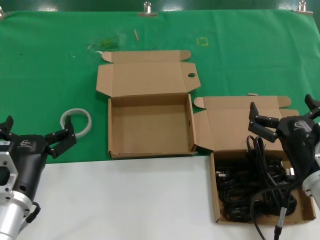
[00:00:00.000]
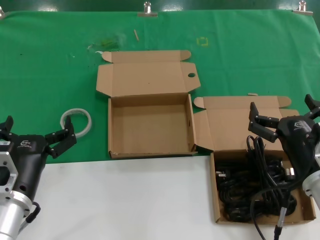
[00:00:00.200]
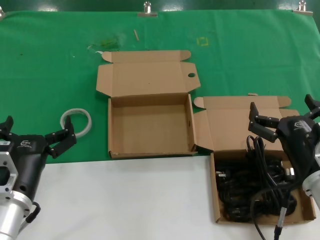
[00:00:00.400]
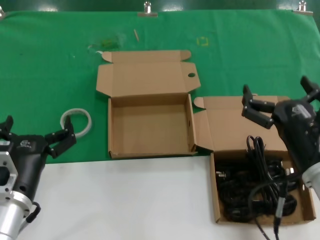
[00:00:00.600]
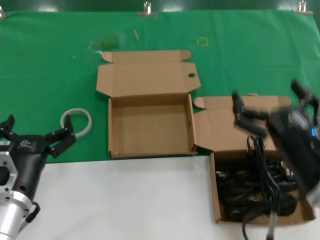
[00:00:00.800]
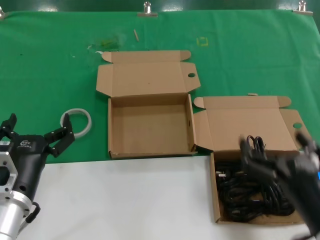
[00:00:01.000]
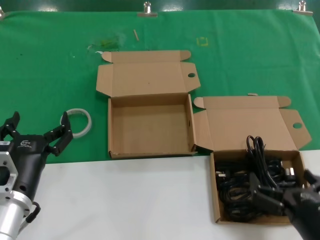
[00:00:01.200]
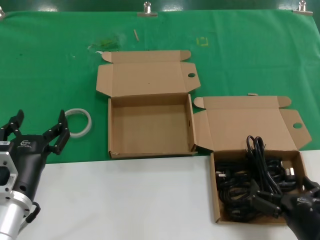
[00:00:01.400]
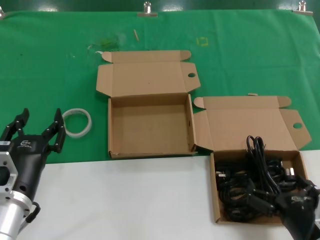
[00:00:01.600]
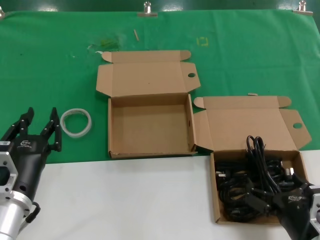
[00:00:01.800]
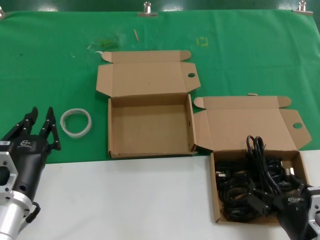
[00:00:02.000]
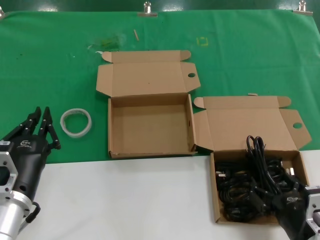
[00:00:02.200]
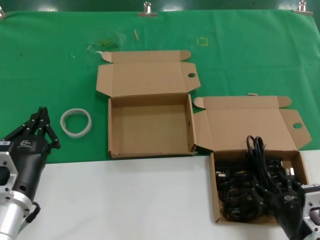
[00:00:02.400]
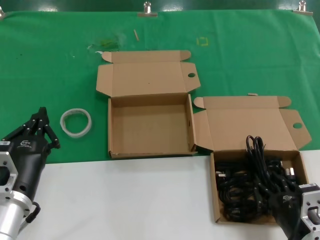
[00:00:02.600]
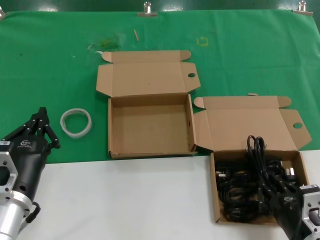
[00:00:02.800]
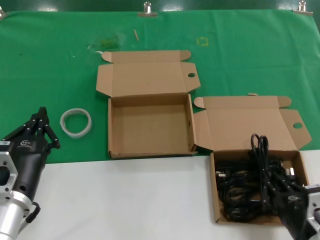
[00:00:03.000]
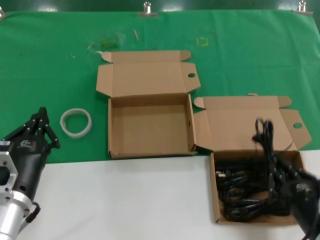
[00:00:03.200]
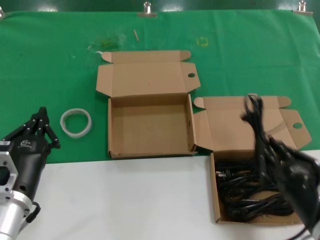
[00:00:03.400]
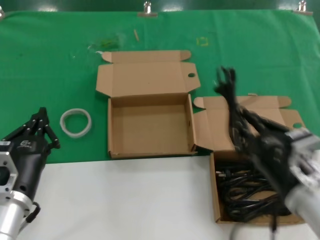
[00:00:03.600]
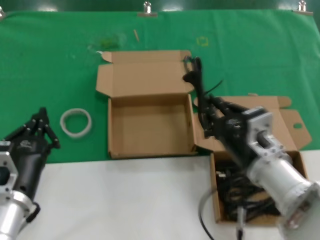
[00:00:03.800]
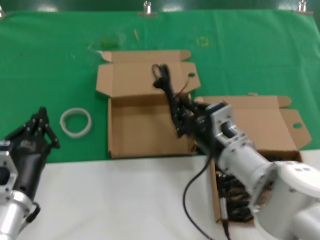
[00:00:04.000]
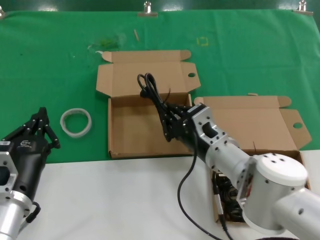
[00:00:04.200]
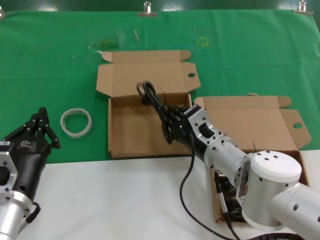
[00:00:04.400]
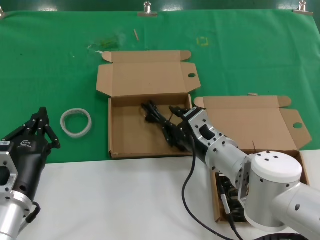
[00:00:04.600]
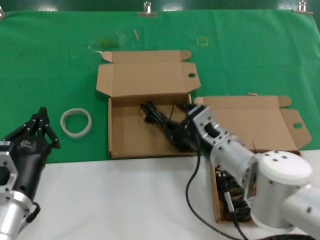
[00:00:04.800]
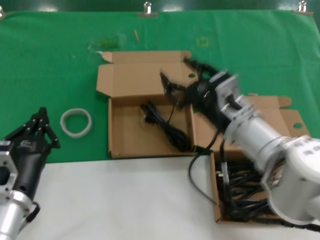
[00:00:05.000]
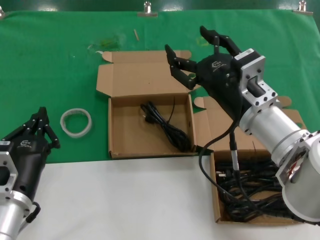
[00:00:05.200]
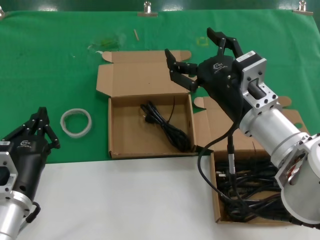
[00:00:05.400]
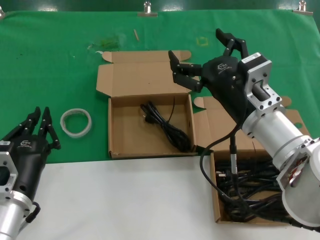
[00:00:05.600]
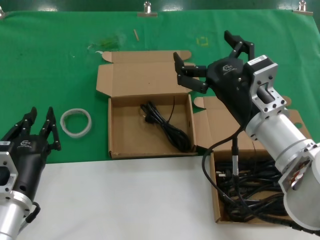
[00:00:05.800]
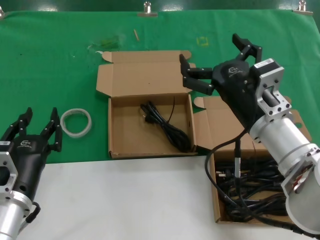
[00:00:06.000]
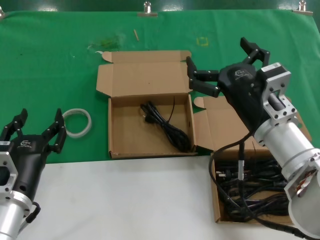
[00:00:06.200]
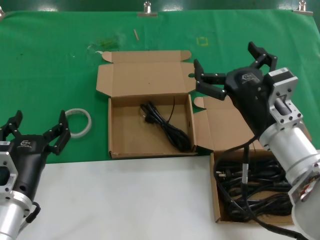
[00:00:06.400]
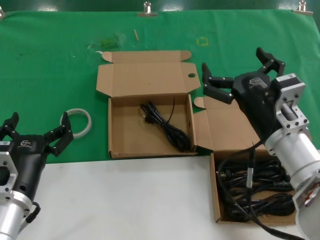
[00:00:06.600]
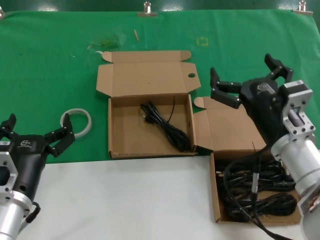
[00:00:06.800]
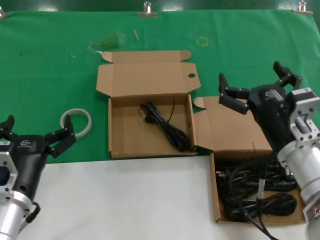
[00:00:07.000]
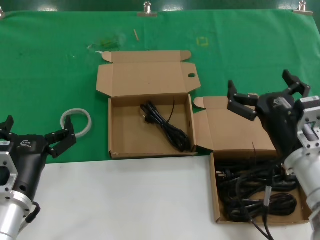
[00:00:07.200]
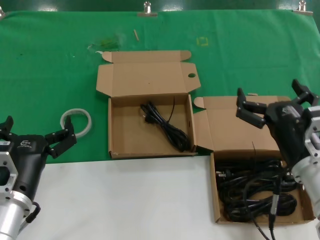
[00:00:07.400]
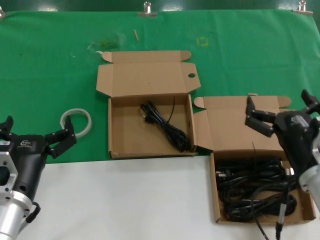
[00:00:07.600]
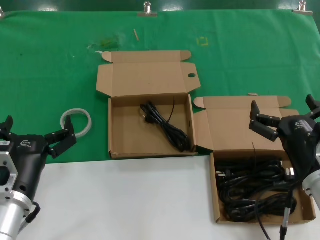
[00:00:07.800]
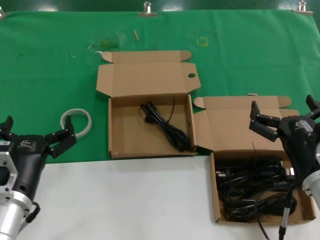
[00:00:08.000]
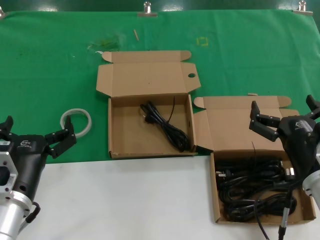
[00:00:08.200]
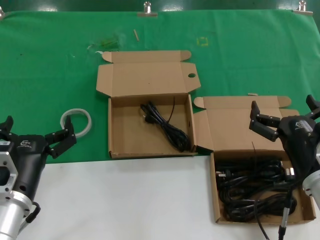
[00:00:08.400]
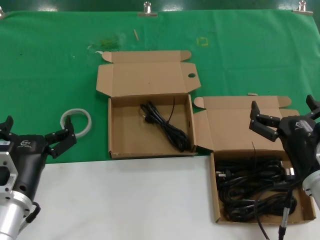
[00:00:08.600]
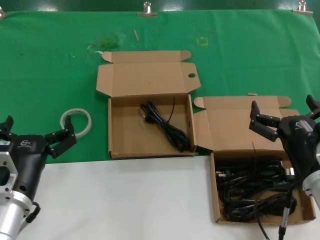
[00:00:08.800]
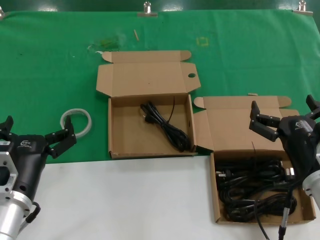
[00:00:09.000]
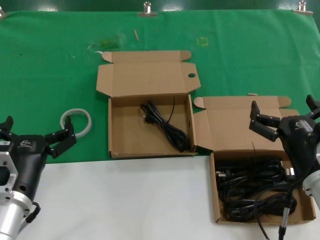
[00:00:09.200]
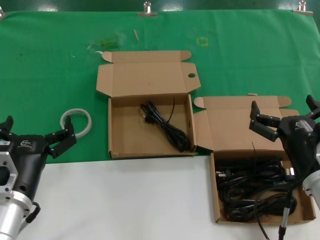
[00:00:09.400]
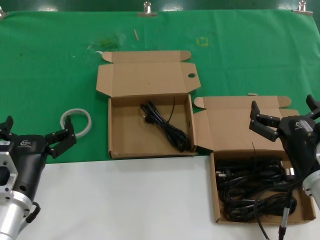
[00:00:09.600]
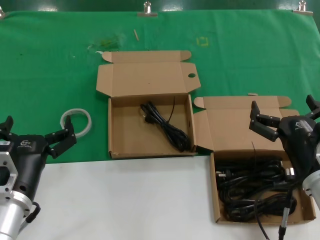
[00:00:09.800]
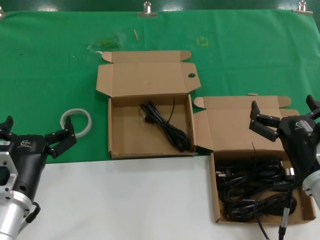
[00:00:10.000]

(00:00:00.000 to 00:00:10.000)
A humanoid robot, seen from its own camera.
Task of the whole recording: Pick up the power cord from the box containing it and place it in another box.
Step, 00:00:00.000 - 00:00:02.800: Grasp the data cable.
Step, 00:00:03.000 - 00:00:04.600: Place the data cable in the another box.
00:00:00.000 - 00:00:01.400: The right hand moves backward, roughly 10 cm.
00:00:01.400 - 00:00:02.800: The hands stay close to where they were, moving slightly.
00:00:02.800 - 00:00:04.200: The right hand moves forward and to the left, about 20 cm.
00:00:04.200 - 00:00:05.800: The right hand is displaced upward by some 10 cm.
00:00:05.800 - 00:00:07.200: The right hand is displaced downward and to the right by roughly 10 cm.
00:00:07.200 - 00:00:08.600: The hands make only small movements.
00:00:08.600 - 00:00:10.000: Both hands stay put.
